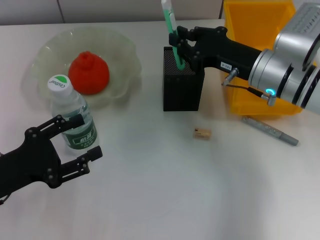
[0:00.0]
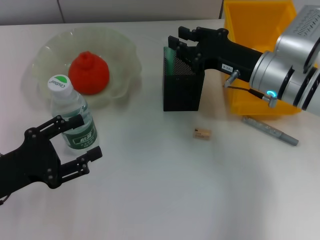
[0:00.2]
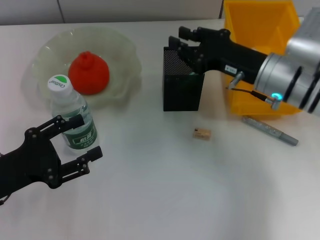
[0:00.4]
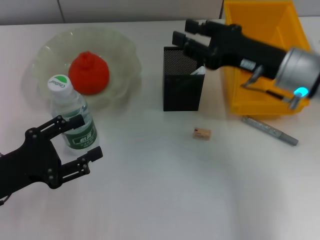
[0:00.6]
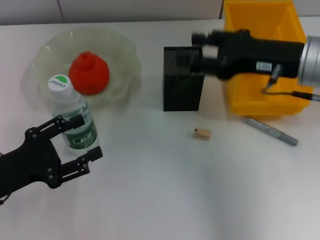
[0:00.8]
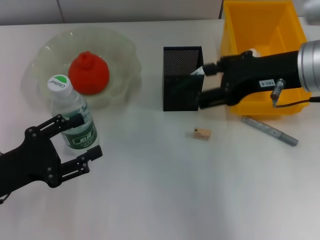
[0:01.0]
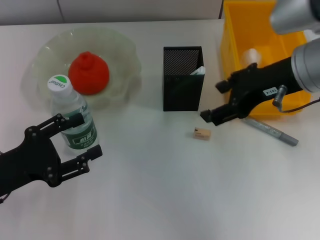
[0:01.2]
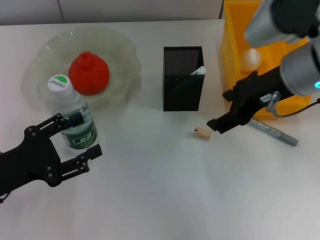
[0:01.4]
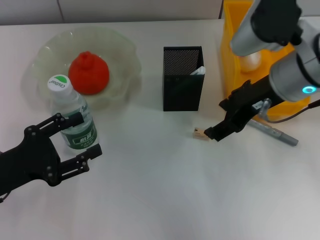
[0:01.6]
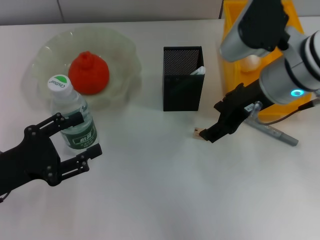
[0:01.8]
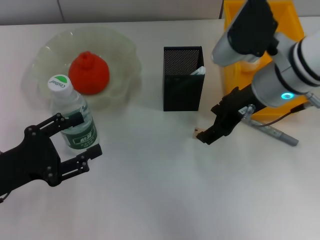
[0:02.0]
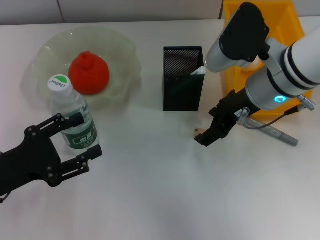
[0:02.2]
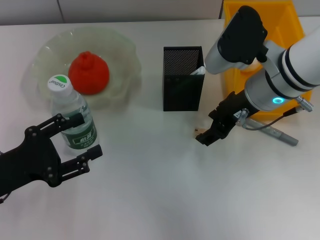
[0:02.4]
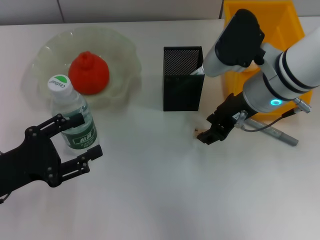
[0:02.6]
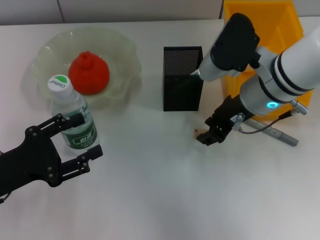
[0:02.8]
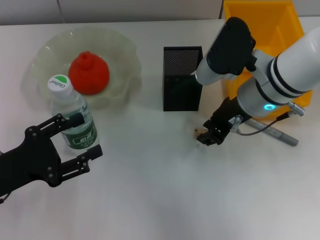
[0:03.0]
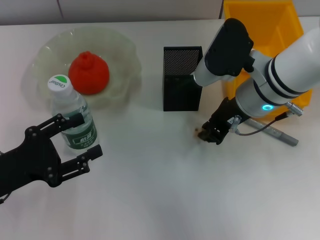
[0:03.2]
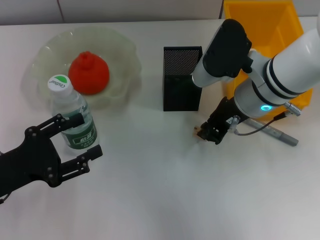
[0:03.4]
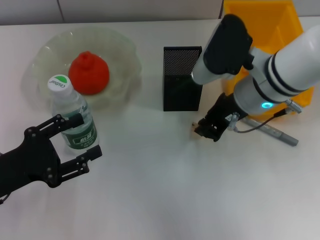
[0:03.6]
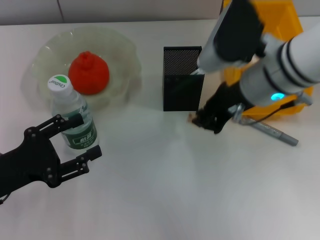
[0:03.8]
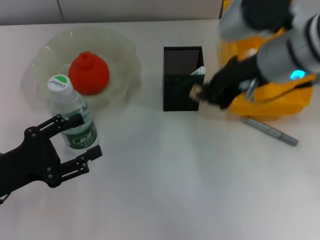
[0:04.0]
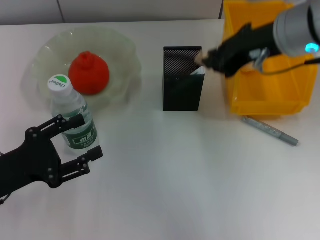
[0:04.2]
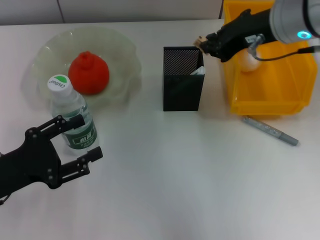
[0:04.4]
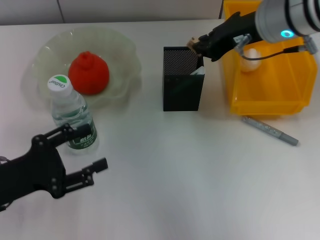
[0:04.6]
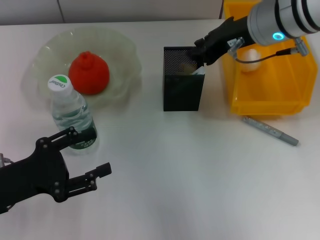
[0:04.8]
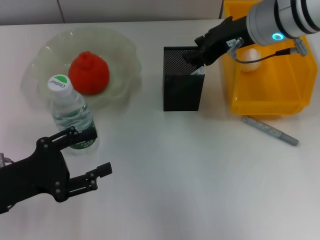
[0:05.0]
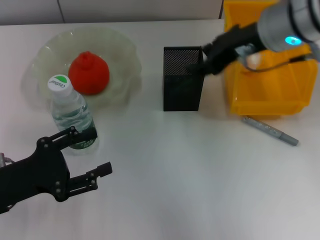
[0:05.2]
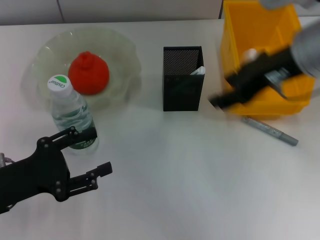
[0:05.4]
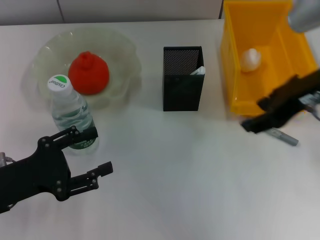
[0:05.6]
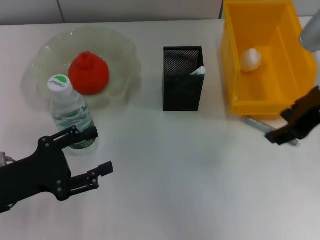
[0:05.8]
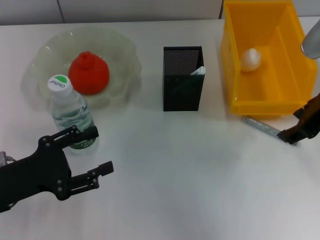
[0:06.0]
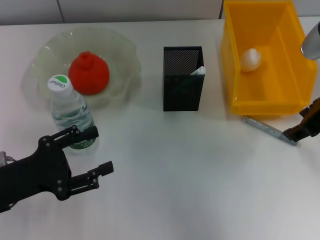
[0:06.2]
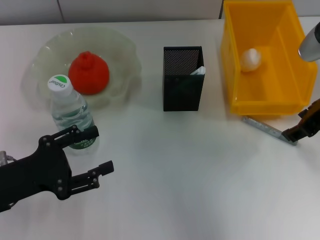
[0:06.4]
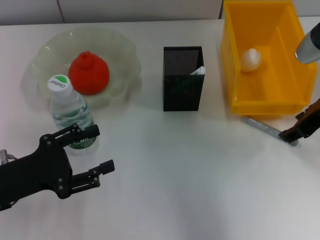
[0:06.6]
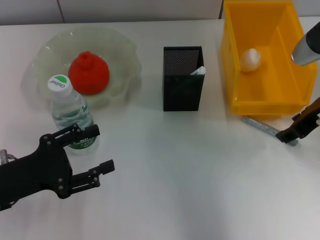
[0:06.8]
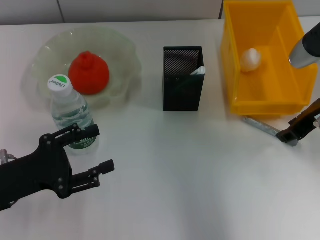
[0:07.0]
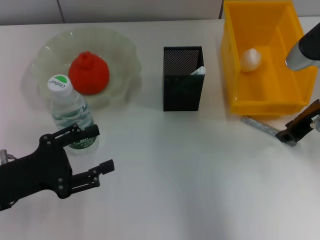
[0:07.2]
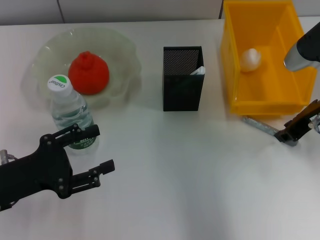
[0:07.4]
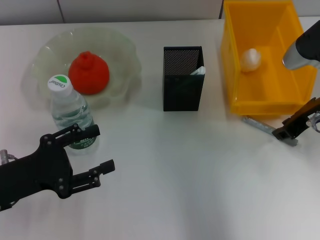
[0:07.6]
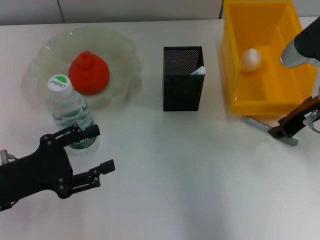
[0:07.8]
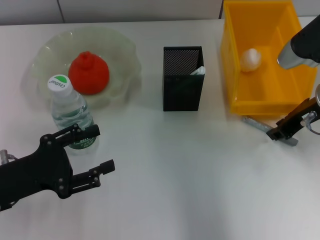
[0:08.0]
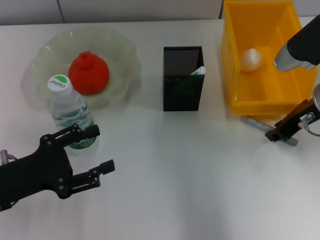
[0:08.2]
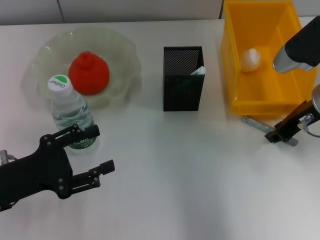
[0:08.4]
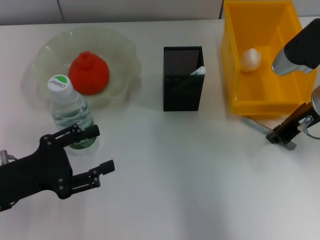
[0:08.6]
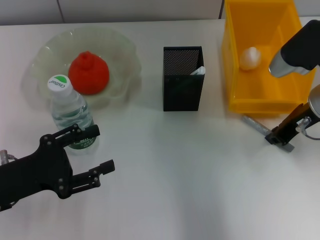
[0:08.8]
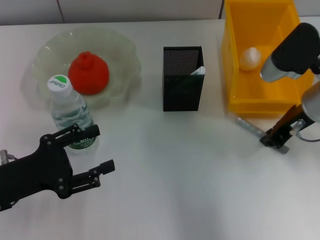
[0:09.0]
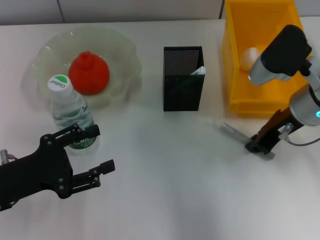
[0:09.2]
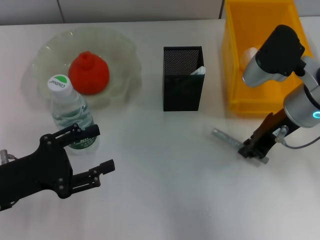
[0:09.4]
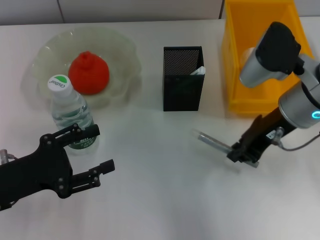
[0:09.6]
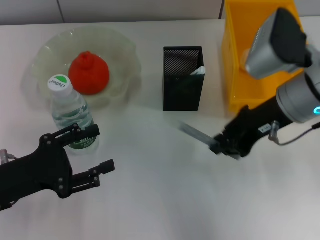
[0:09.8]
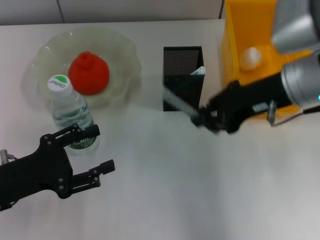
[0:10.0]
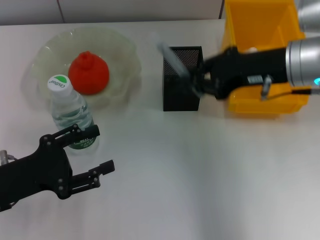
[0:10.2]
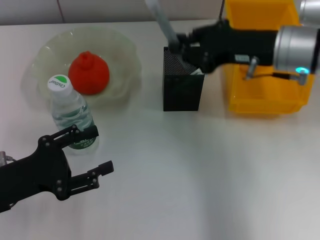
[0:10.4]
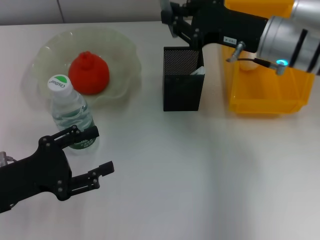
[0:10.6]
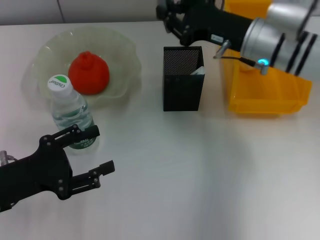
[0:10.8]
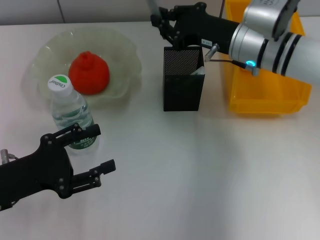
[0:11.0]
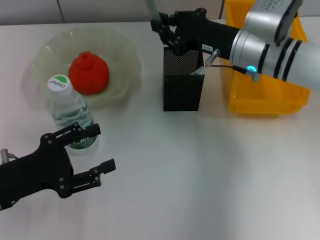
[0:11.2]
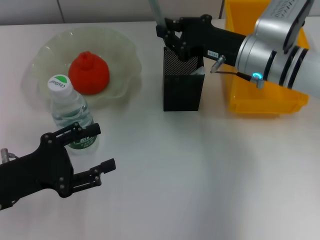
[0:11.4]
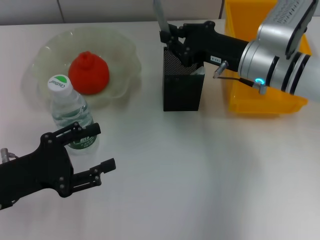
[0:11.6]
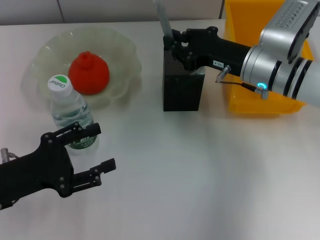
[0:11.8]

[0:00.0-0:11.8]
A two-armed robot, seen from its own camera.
Step, 0:00.6 to 0:03.2: Grab the eraser with the right hand.
Step, 0:03.4 to 0:05.0: Put the eraser into the pen holder with the right hand.
Step, 0:05.2 to 0:09.0: Grab the gray glue with the right hand.
0:00.0 to 0:01.4: The right gripper shifts some 10 cm upward, and opens up.
0:01.4 to 0:03.0: The right gripper heads downward, covering some 5 cm, and closes its fingers.
0:03.0 to 0:04.4: The right gripper moves upward, roughly 10 cm, and closes its fingers.
0:04.4 to 0:06.0: The right gripper is displaced to the right and backward by approximately 10 cm, and opens up.
0:06.0 to 0:07.4: The right gripper moves downward, about 5 cm, and closes its fingers.
0:07.4 to 0:08.8: The grippers stay close to where they were, moving slightly.
0:08.8 to 0:10.4: The right gripper changes place by roughly 5 cm.
0:10.4 to 0:11.8: The right gripper heads downward, covering some 10 cm.

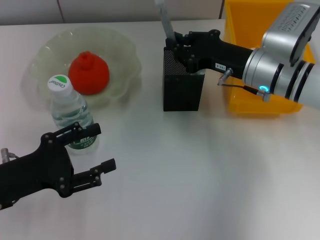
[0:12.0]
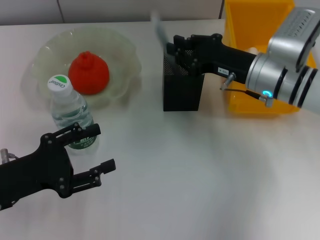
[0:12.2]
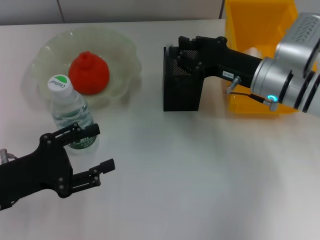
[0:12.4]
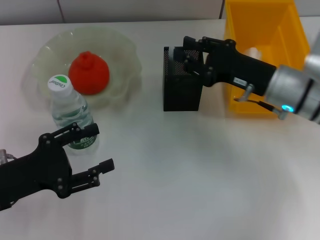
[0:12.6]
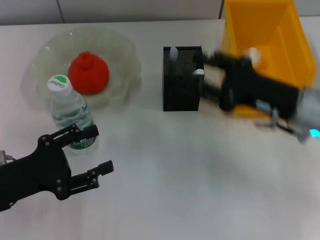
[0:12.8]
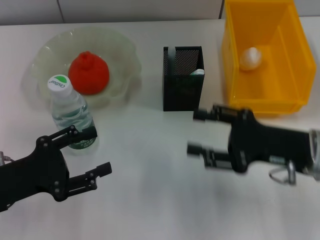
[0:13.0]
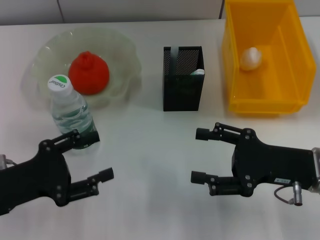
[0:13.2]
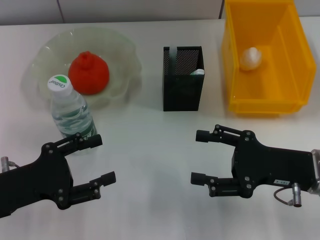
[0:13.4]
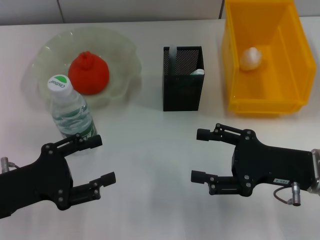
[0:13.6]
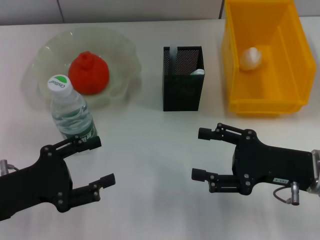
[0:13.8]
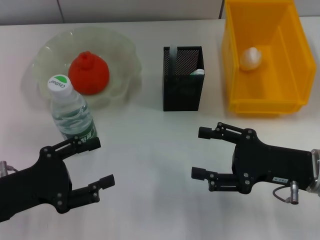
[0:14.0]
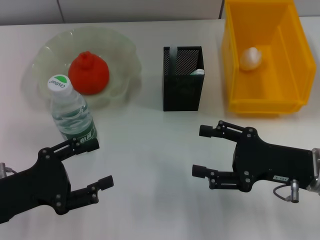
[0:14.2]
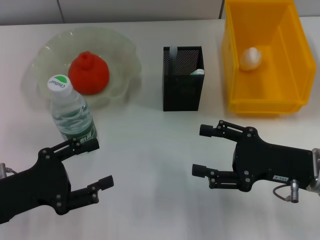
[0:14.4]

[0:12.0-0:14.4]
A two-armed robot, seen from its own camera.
0:12.0 to 0:13.2: The right gripper moves backward and to the right, about 15 cm, and opens up.
0:13.2 to 0:14.4: Both grippers stay put.

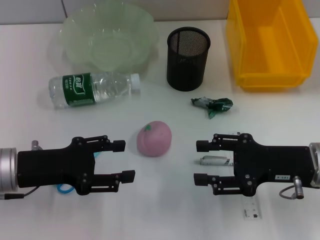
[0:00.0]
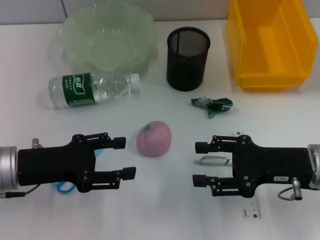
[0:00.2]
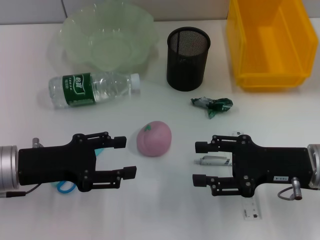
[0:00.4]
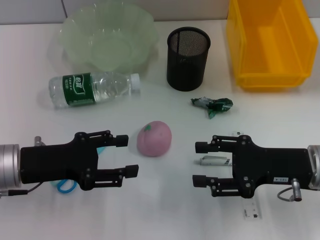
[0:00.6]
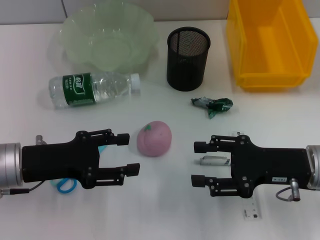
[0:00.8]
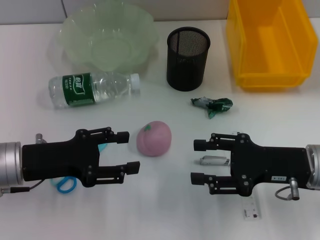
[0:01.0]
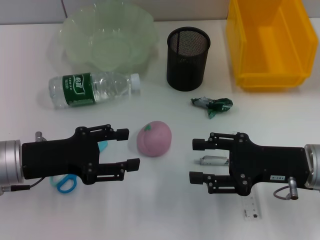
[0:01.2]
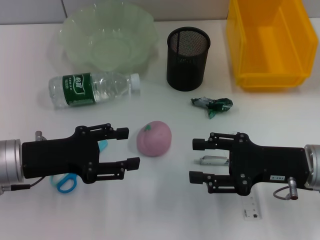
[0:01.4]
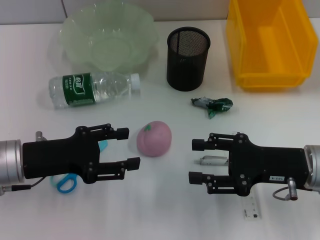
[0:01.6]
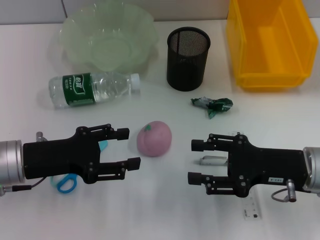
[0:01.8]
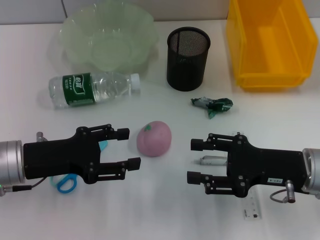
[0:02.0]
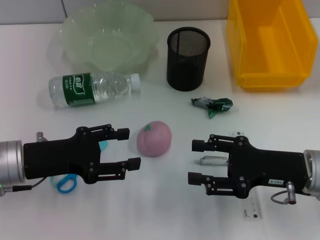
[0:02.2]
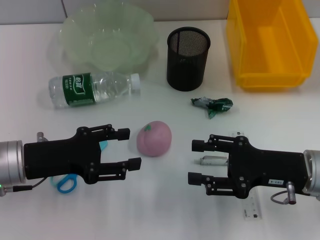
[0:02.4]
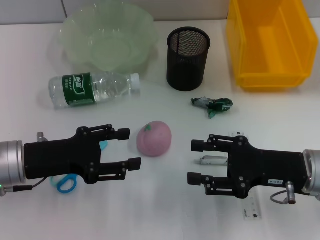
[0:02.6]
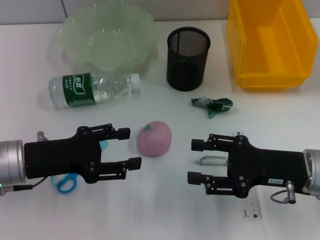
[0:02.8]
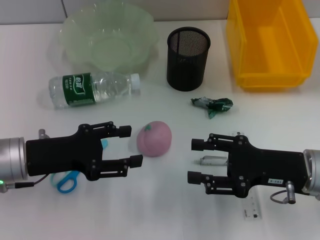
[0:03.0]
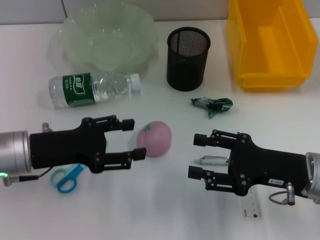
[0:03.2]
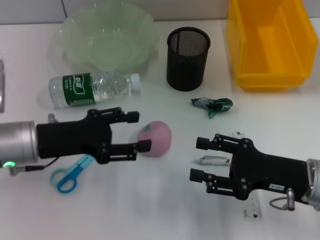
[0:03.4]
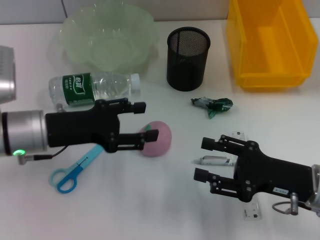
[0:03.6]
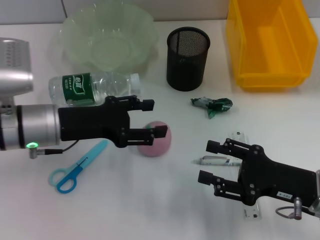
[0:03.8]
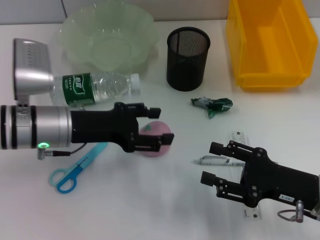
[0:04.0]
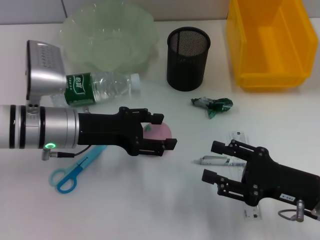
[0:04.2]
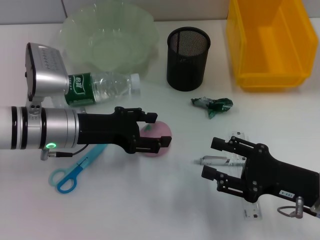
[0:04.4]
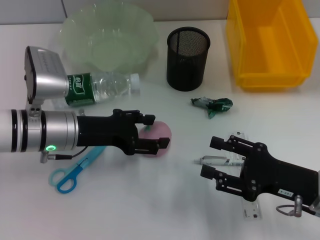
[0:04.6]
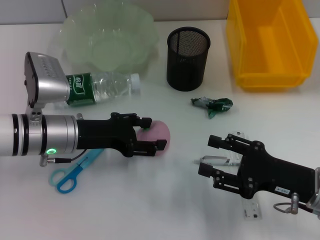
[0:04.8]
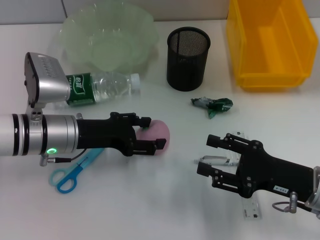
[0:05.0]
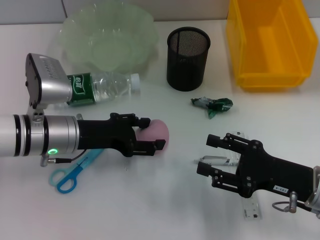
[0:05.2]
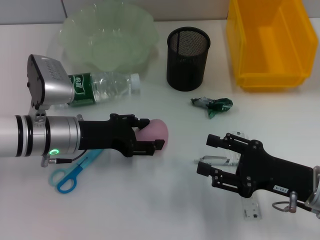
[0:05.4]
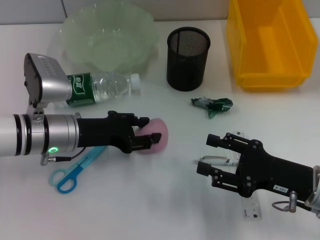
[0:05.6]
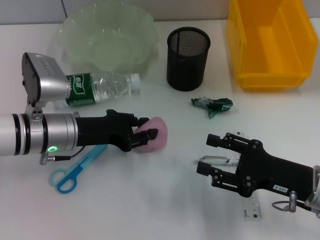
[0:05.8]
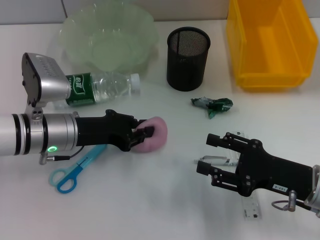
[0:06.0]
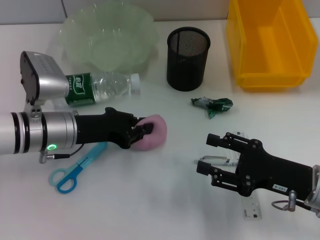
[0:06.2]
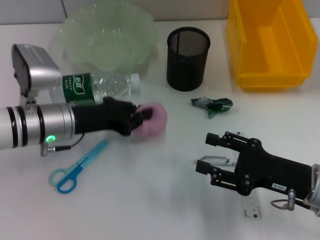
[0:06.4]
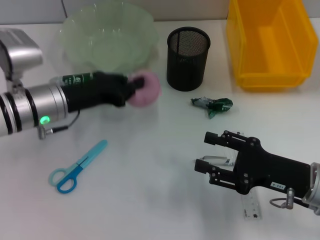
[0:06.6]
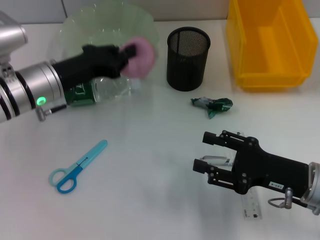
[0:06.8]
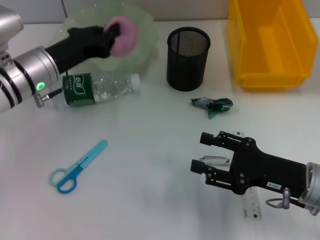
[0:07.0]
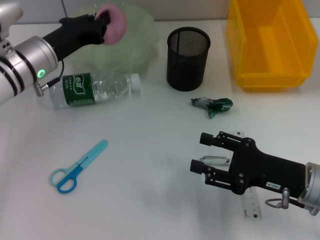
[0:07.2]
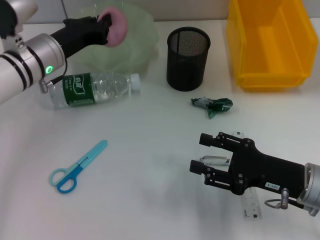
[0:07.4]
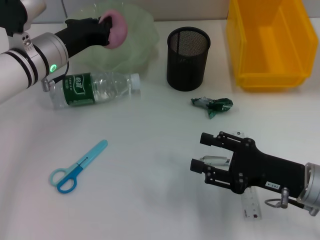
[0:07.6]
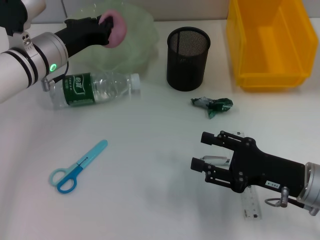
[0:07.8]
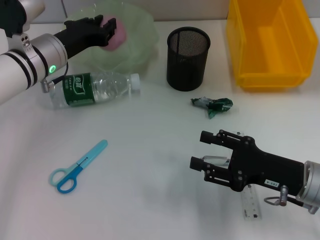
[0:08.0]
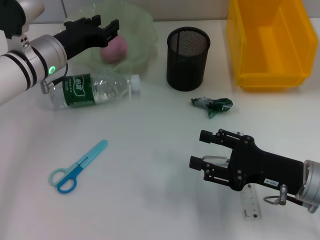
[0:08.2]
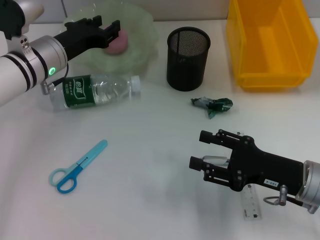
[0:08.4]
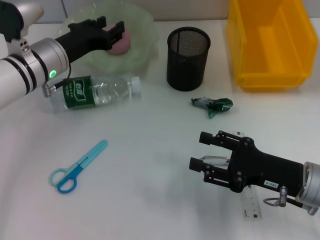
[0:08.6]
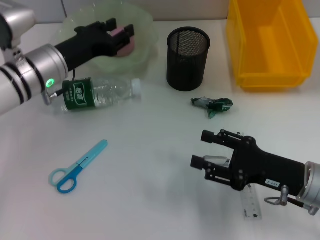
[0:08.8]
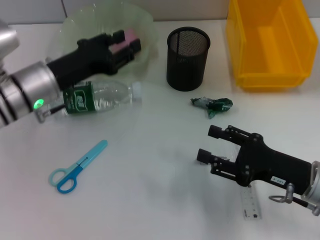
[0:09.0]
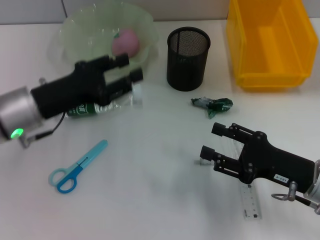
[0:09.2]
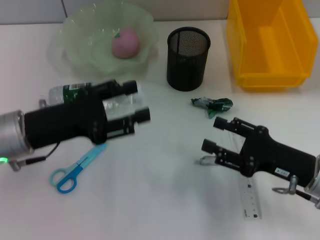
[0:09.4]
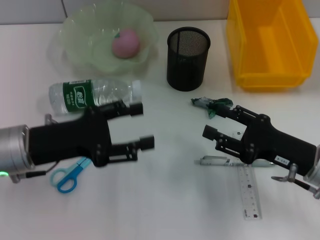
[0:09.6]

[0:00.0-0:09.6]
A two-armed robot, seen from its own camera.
Step, 0:00.0 to 0:06.0: Grab the peach with the left hand.
Step, 0:06.2 to 0:08.2: Place the peach into the fruit bowl with the left hand.
0:00.0 to 0:01.6: The two grippers keep their place.
0:01.6 to 0:03.2: There are only small adjustments of the grippers.
0:03.2 to 0:04.8: The left gripper changes place by some 5 cm.
0:04.8 to 0:06.4: The left gripper closes up.
0:06.4 to 0:08.0: The left gripper is displaced forward by approximately 10 cm.
0:08.0 to 0:09.6: The left gripper shifts about 15 cm backward, and opens.
